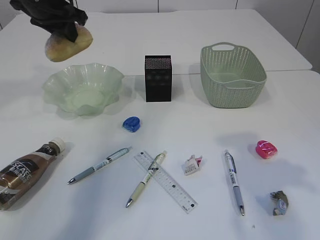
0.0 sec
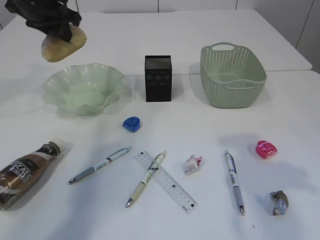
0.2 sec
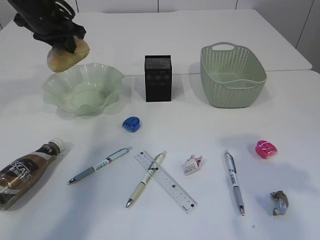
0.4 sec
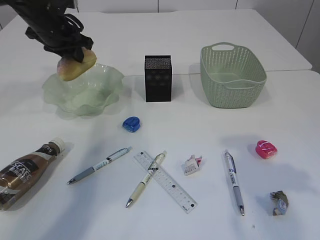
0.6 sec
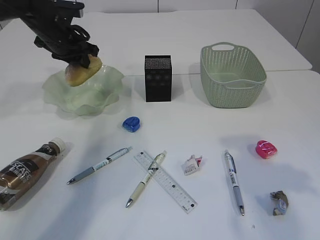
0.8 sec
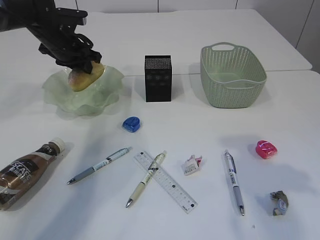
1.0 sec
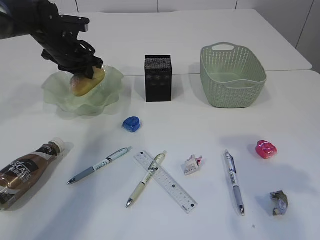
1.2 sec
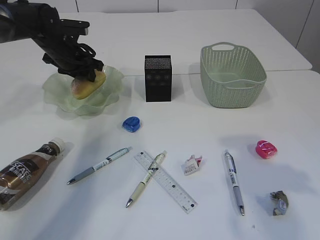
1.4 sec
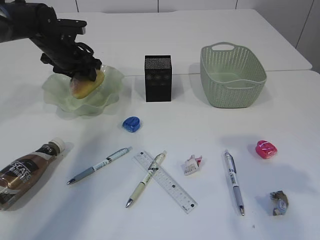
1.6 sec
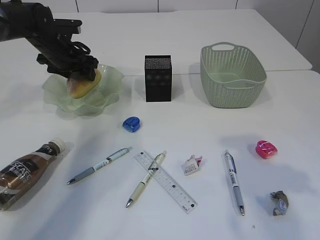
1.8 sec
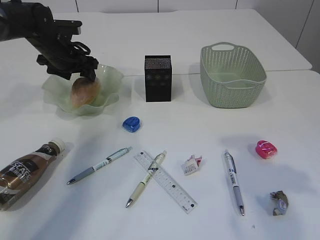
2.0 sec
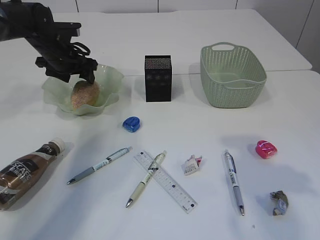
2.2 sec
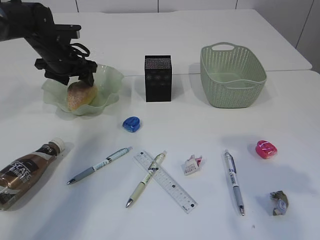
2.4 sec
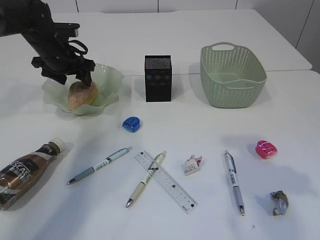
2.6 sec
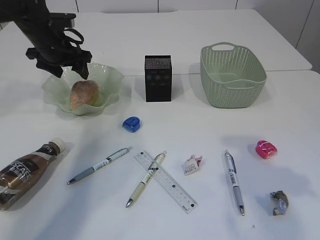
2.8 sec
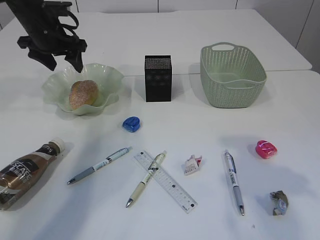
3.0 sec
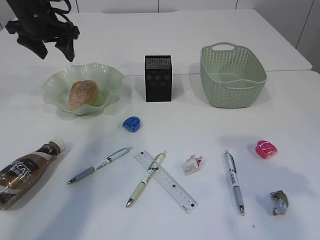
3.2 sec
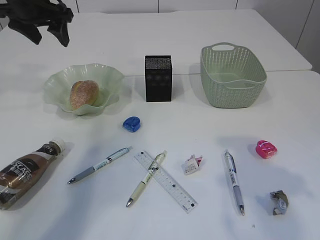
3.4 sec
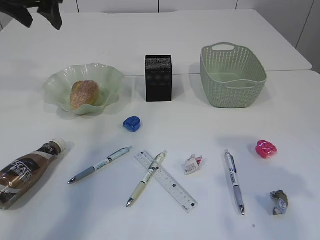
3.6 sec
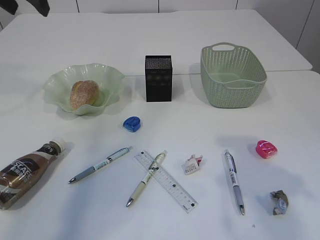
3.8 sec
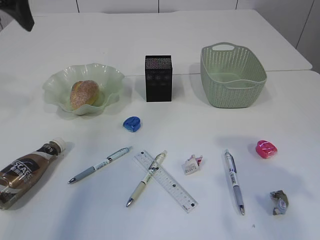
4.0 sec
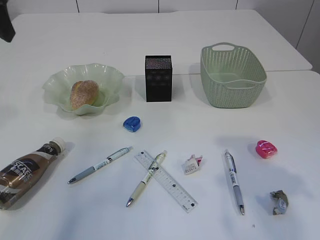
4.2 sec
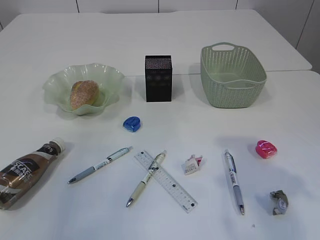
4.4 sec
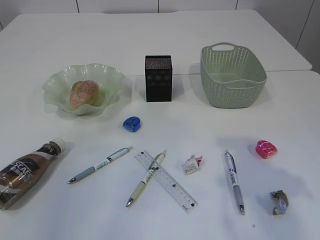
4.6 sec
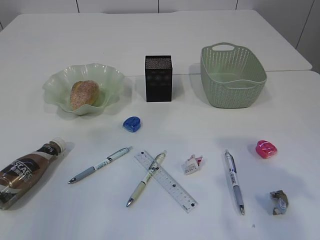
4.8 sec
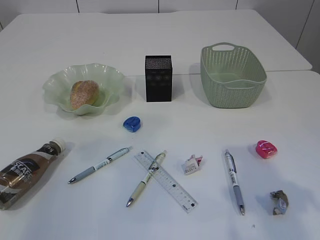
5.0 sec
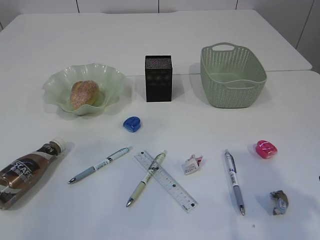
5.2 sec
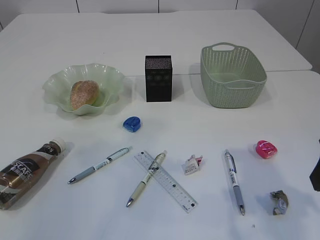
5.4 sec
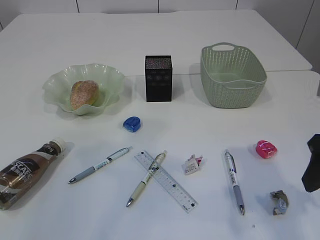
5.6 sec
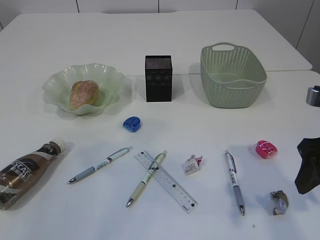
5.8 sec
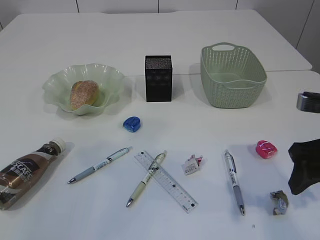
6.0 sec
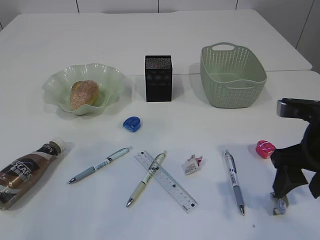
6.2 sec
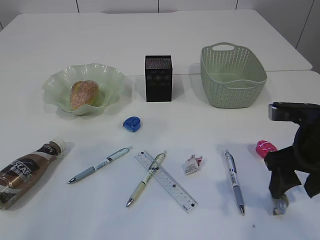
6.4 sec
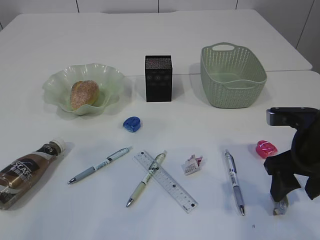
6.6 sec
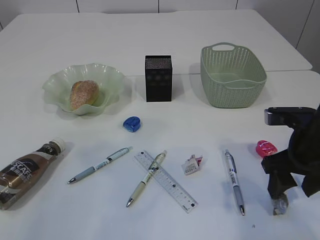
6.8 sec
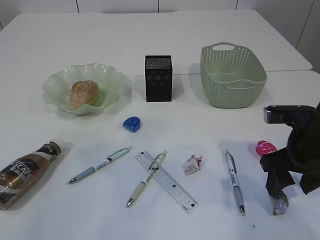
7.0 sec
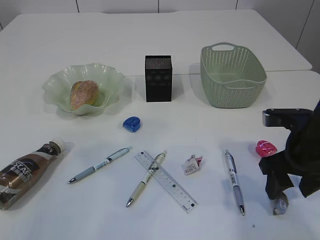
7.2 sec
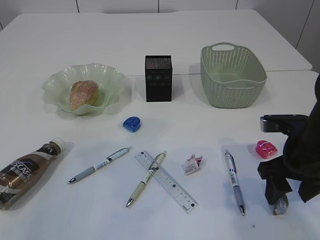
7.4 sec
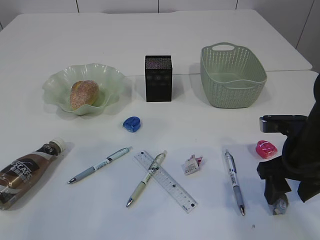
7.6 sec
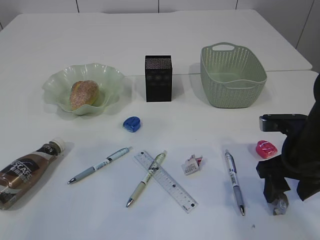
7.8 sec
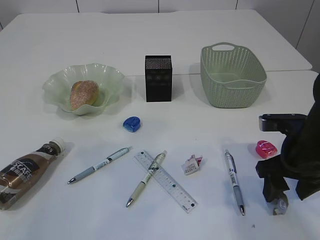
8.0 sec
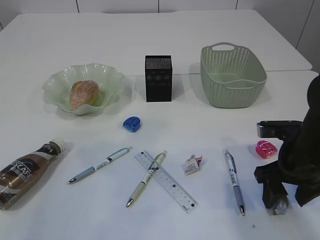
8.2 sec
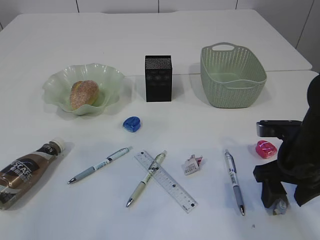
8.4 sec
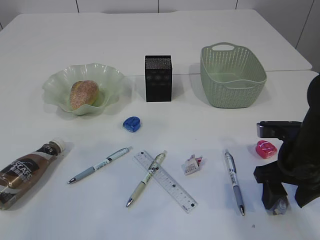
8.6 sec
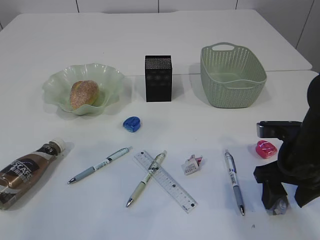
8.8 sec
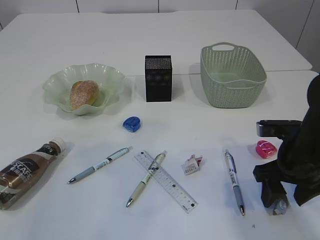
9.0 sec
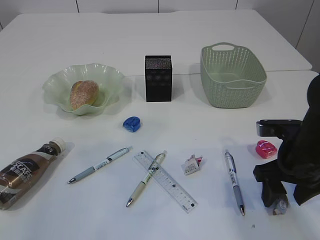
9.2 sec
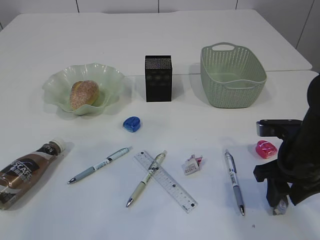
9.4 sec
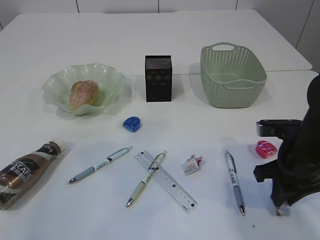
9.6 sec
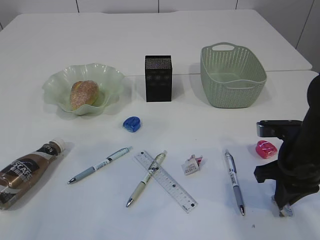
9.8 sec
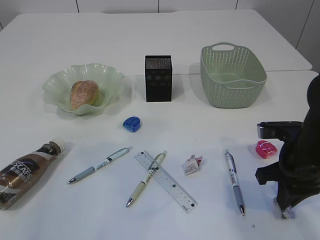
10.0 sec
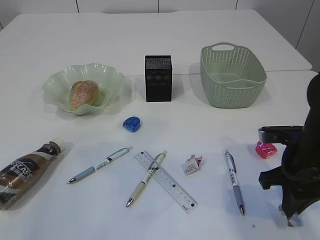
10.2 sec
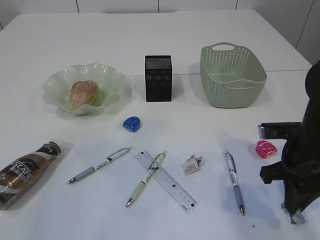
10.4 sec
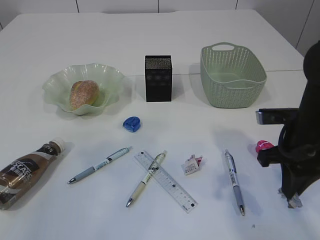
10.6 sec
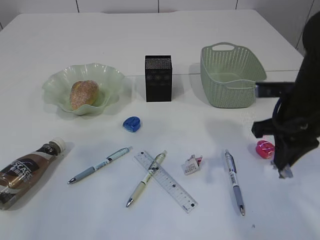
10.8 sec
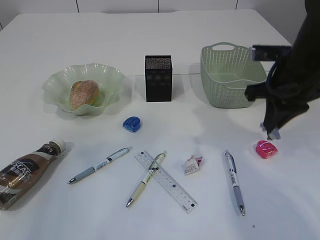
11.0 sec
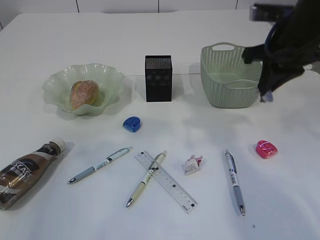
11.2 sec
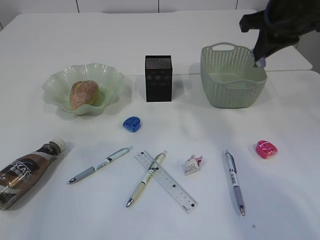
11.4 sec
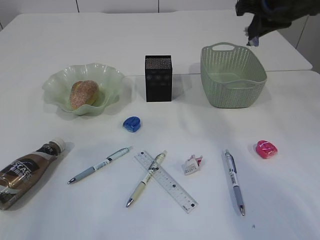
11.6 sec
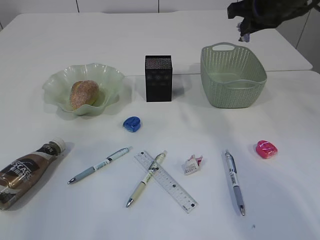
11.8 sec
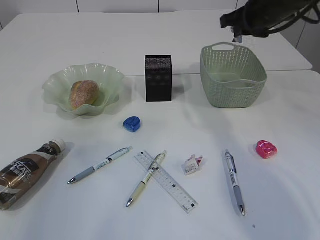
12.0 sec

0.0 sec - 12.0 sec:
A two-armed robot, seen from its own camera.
Step, 0.0 sec - 3.2 sec: place the bread in the plate.
Step, 3.4 sec - 10.6 sec: Pick up the waste paper.
0.0 sec - 1.6 sec: The left gripper moves downward and forward, about 15 cm, and opens.
1.6 sec - 3.0 sec: The left gripper goes roughly 5 cm upward.
3.0 sec - 4.4 sec: The left gripper heads backward and upward, covering about 25 cm.
4.4 sec - 6.0 sec: The right gripper heads downward, covering some 10 cm.
6.0 sec - 7.6 sec: The right gripper moves downward, about 5 cm.
7.6 sec - 9.0 sec: The two grippers keep their place.
9.0 sec - 10.4 sec: The right gripper closes up.
10.4 sec - 12.0 sec: The right gripper is displaced forward and upward by about 25 cm.

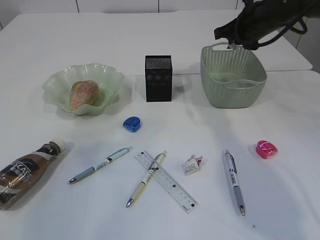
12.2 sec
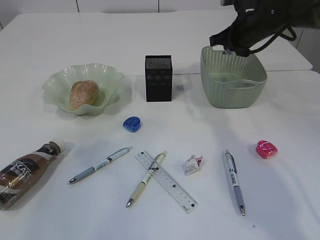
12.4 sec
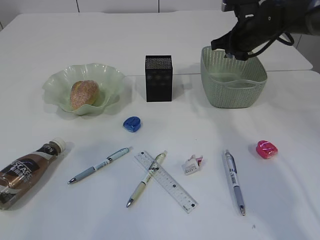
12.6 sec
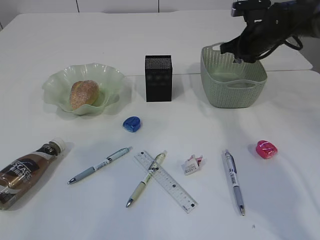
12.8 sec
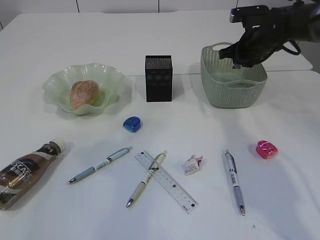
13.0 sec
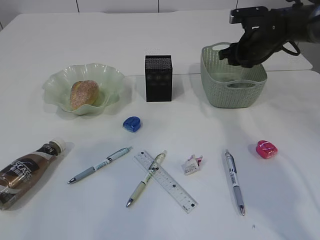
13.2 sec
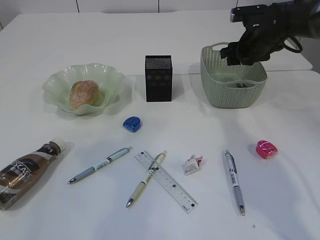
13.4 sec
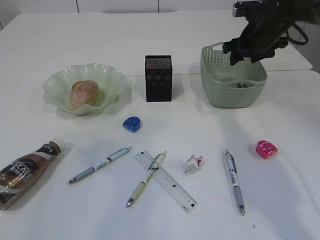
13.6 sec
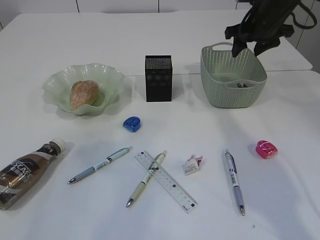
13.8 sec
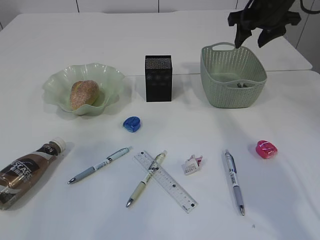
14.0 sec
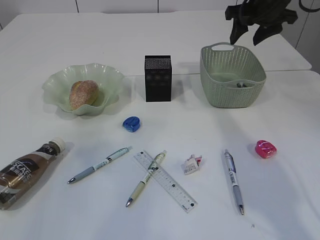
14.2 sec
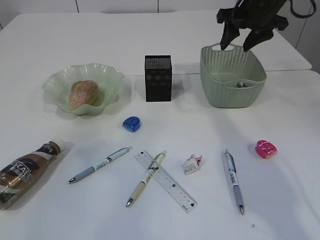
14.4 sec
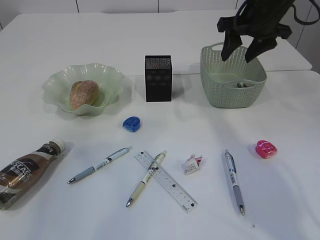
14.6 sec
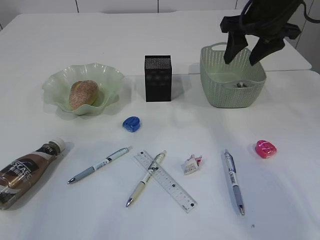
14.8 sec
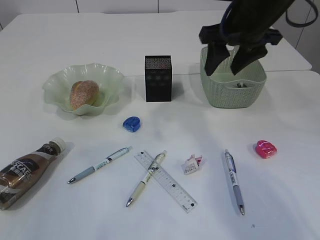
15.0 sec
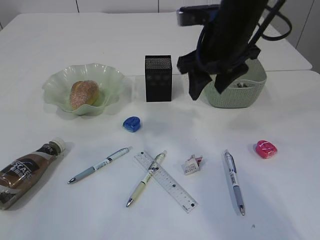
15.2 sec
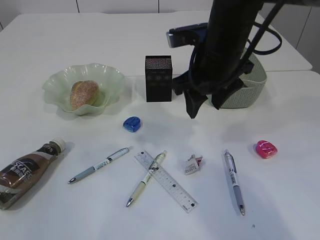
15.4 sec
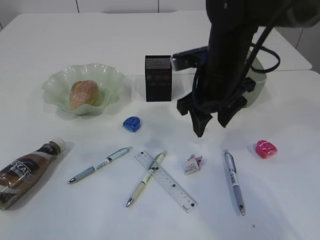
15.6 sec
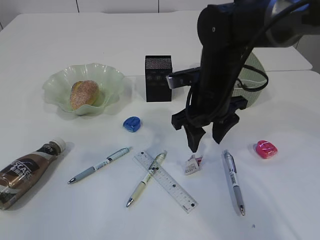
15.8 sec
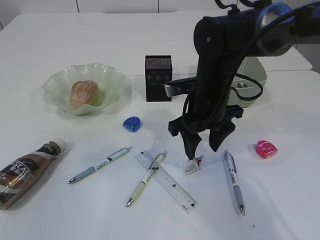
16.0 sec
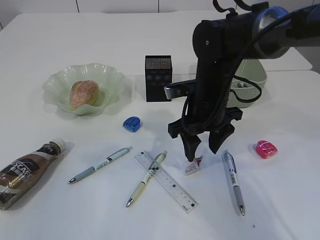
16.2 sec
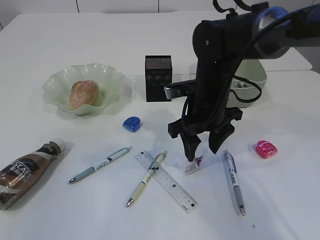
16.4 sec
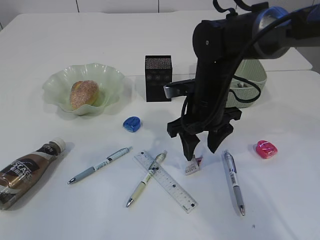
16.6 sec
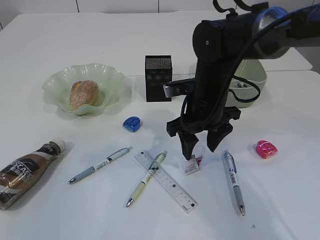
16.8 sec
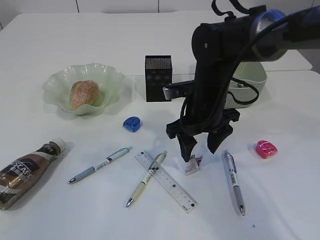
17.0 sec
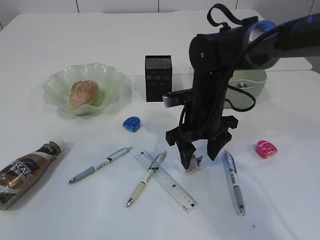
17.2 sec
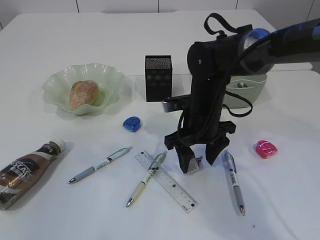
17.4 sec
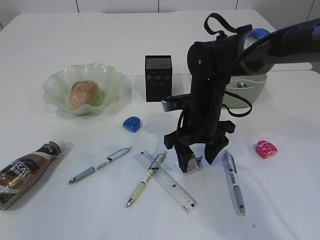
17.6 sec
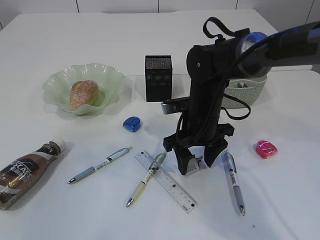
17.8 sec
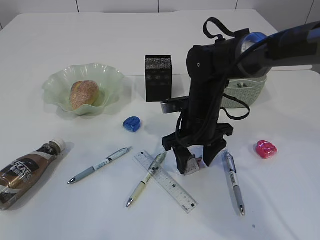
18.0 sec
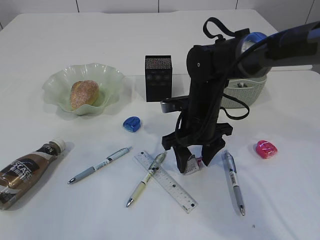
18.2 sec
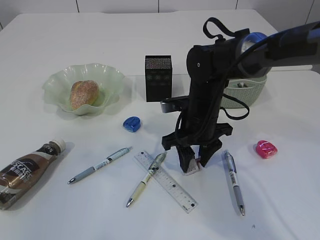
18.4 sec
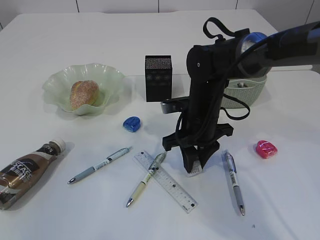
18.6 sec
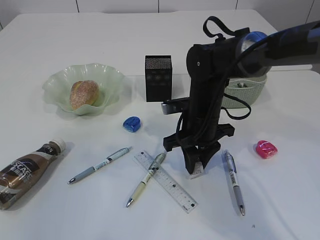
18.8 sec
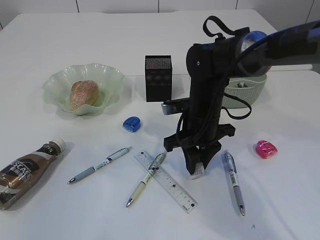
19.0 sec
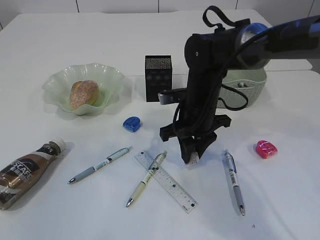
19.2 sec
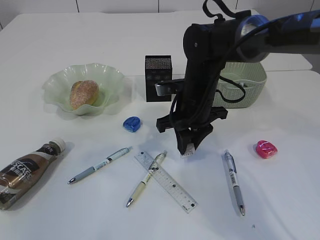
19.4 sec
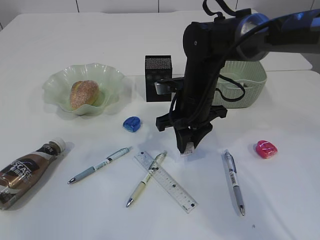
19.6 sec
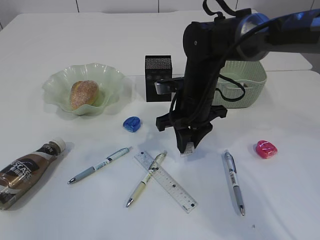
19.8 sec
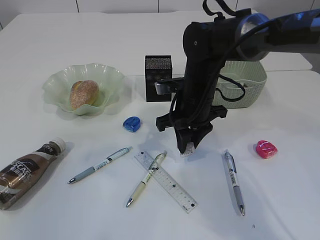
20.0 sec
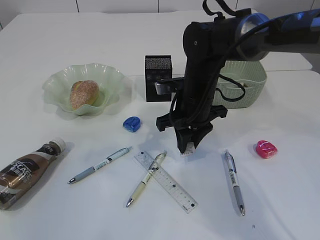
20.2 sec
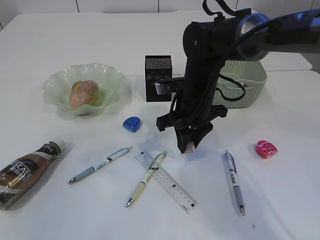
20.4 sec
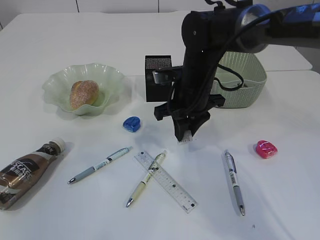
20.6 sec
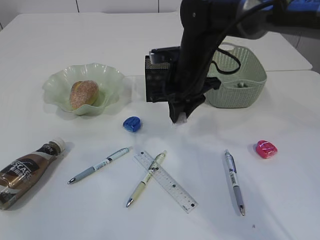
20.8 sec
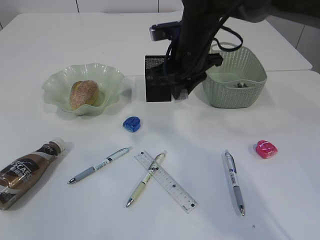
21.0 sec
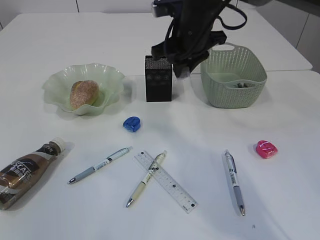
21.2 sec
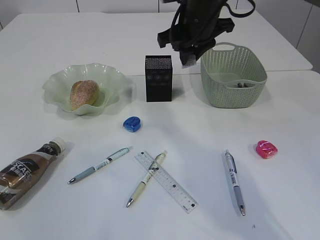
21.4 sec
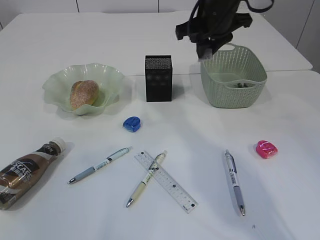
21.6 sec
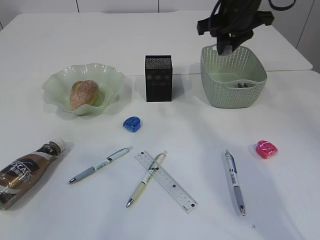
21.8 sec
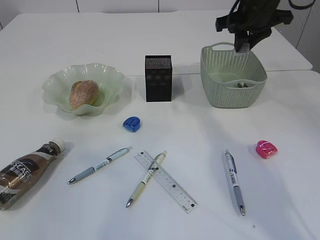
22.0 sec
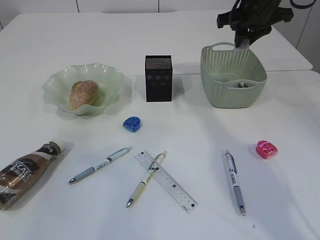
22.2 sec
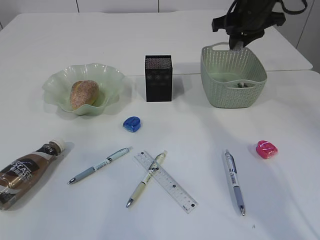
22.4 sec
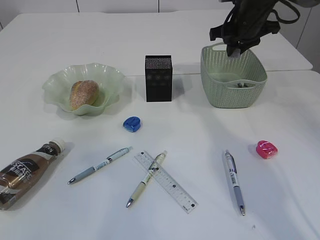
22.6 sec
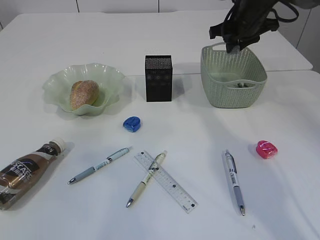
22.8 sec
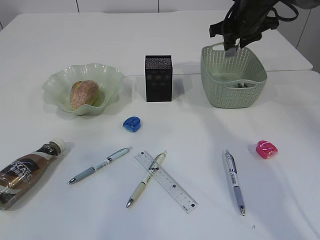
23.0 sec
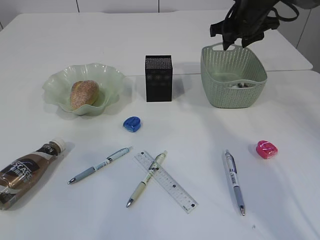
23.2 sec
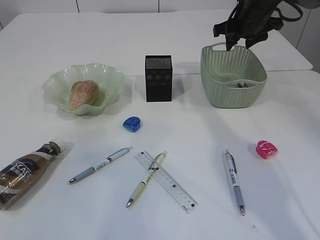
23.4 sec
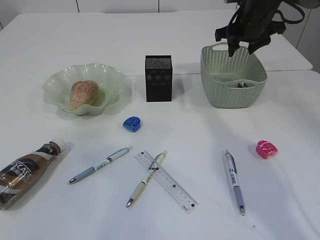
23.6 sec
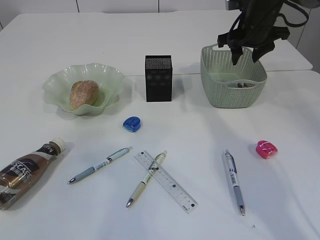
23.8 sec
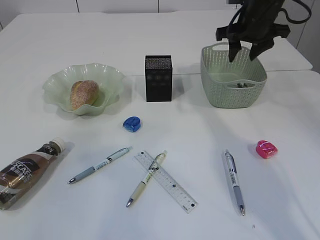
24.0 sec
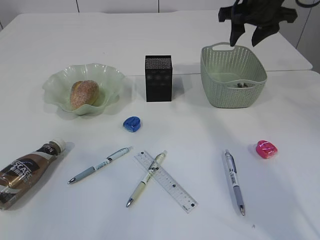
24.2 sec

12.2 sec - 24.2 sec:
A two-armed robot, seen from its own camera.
Step, 12.2 sec - 14.0 sec: Place the waste paper in the basket.
Step, 14.2 sec - 20.8 sec: Pick up the waste paper.
Step, 21.0 sec - 23.8 sec: Place the waste paper in the basket.
12.2 sec - 13.8 sec: The right gripper opens.
13.8 sec - 15.2 sec: The right gripper is displaced backward and to the left by some 15 cm.
15.2 sec - 16.6 sec: The right gripper travels downward by some 10 cm.
16.6 sec - 18.2 sec: There are only small adjustments of the grippers.
18.2 sec - 19.8 sec: The right gripper closes its fingers.
19.8 sec - 21.2 sec: The right gripper shifts about 10 cm upward.
21.2 sec - 22.6 sec: The right gripper shifts some 15 cm to the right and forward.
22.6 sec - 24.2 sec: The right gripper opens up.
